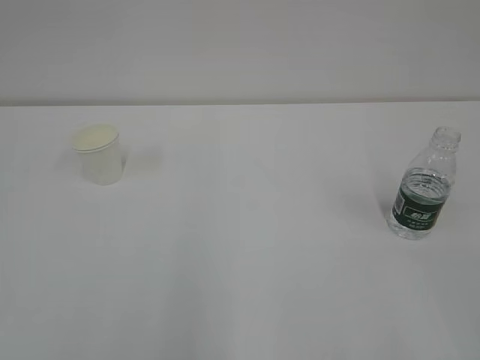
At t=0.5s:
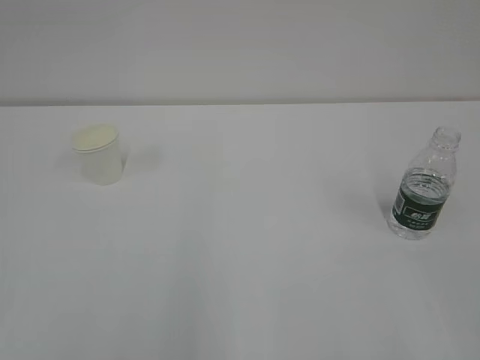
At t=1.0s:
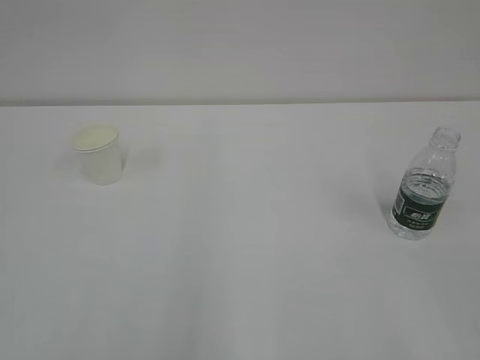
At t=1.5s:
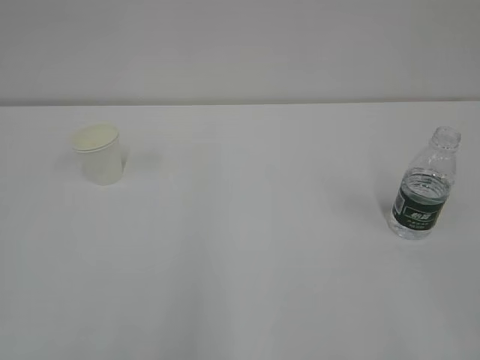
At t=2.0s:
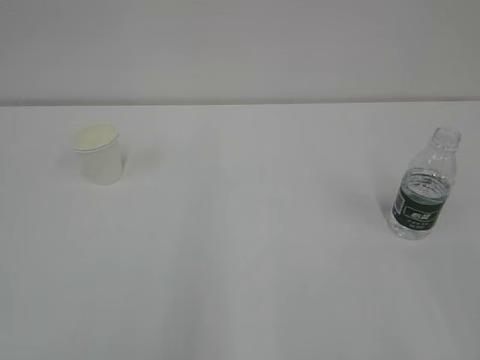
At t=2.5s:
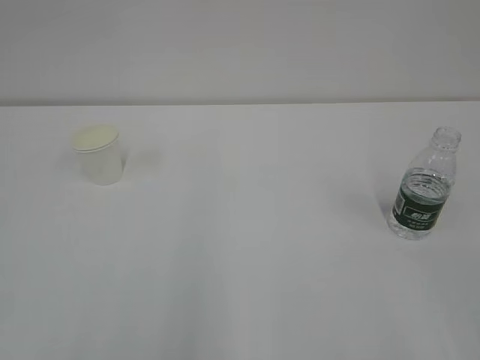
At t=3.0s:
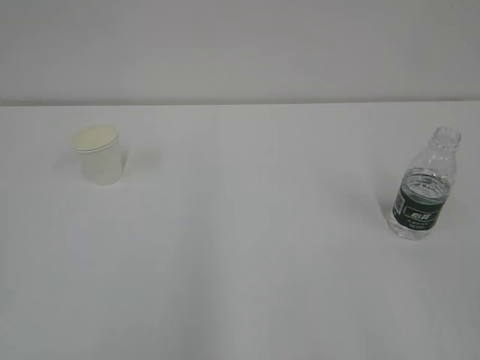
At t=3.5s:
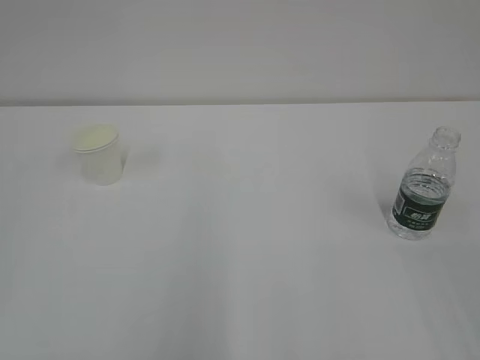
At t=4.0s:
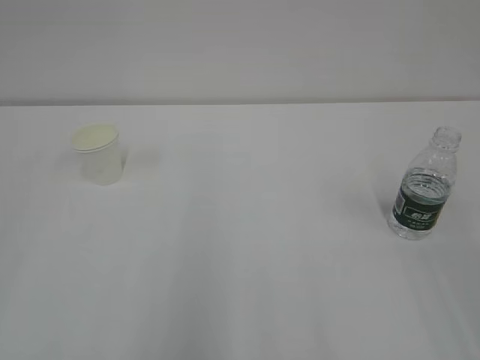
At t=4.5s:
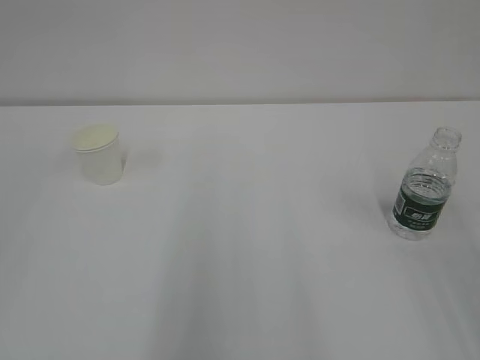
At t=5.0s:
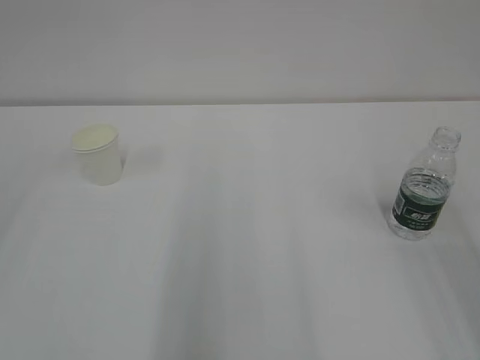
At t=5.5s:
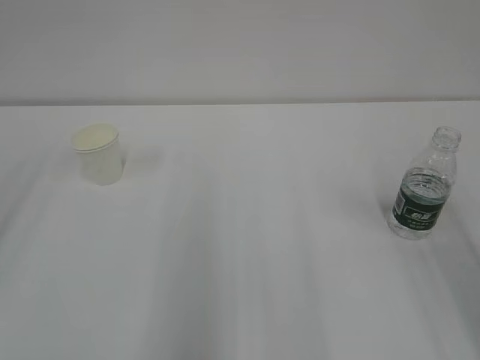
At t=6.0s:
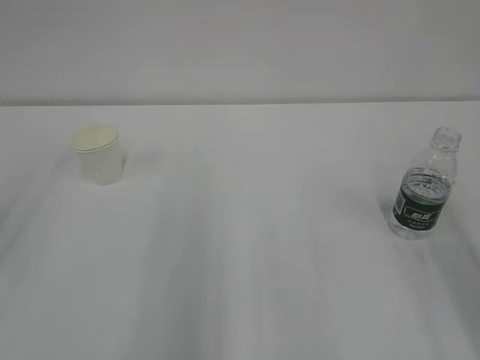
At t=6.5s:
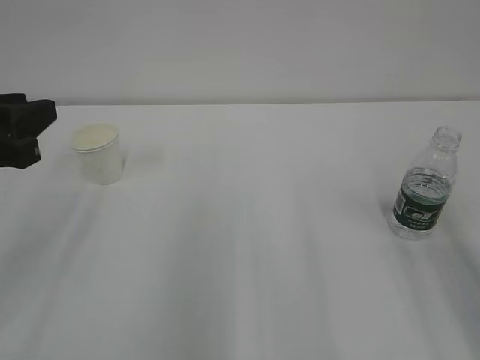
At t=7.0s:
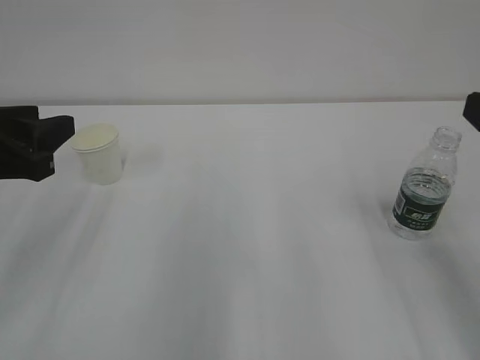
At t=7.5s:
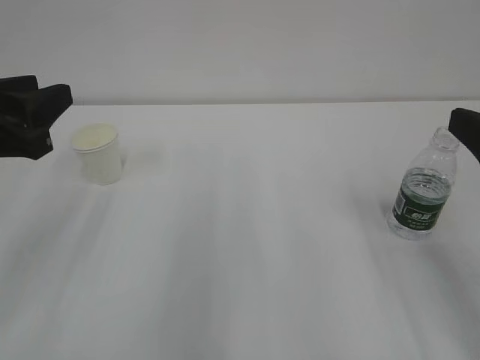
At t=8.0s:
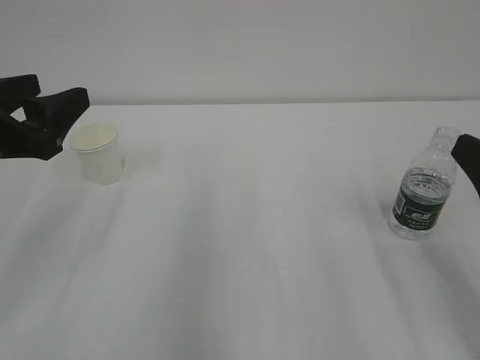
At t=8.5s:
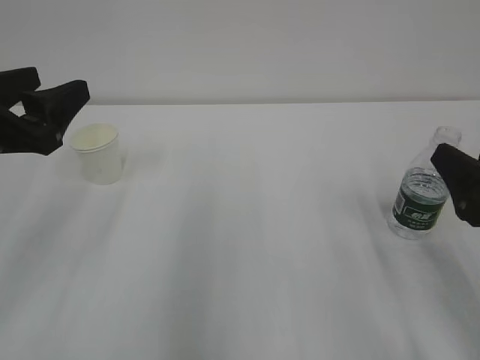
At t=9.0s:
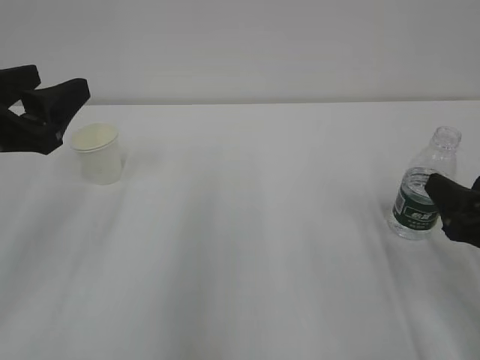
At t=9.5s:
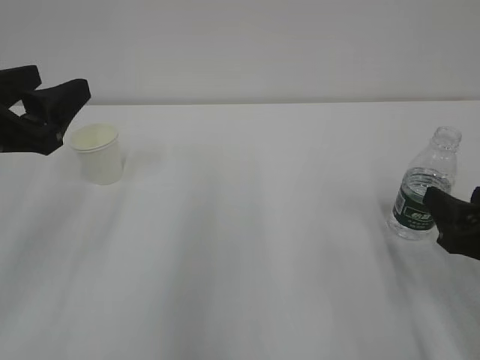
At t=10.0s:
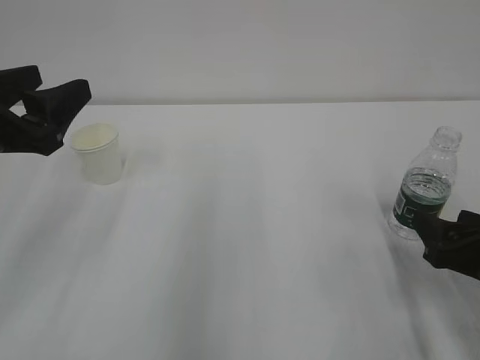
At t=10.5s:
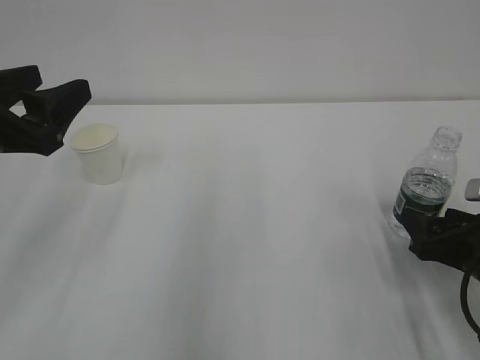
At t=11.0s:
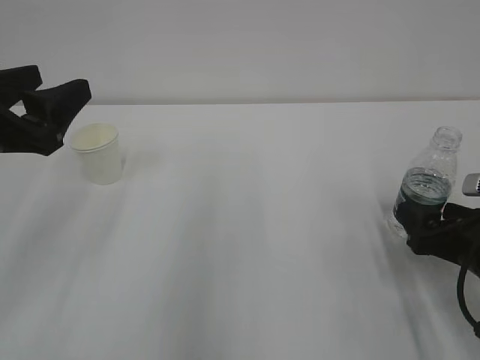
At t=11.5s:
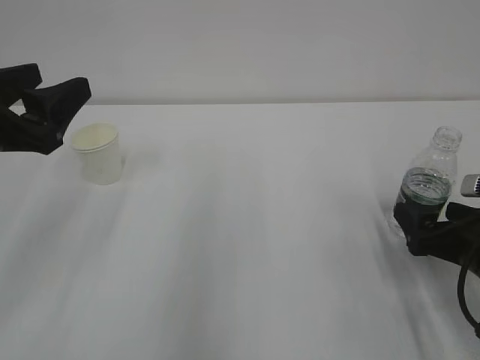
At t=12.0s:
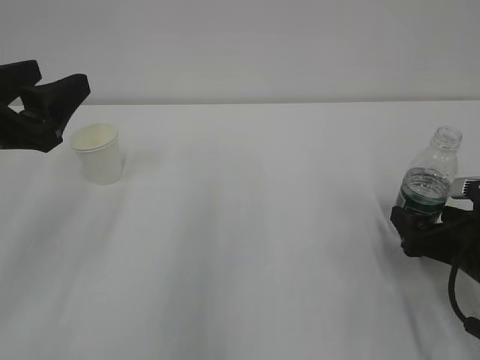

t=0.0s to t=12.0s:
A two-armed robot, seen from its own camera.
t=6.0s to t=8.0s: The left gripper is displaced to the right and downward by some 10 cm, and opens; the right gripper goes about 10 cm downward.
t=8.0s to t=10.0s: The right gripper moves downward, some 10 cm.
t=10.0s to t=12.0s: The right gripper moves some 5 cm, and opens up.

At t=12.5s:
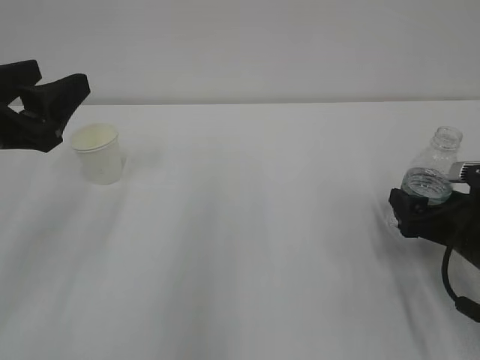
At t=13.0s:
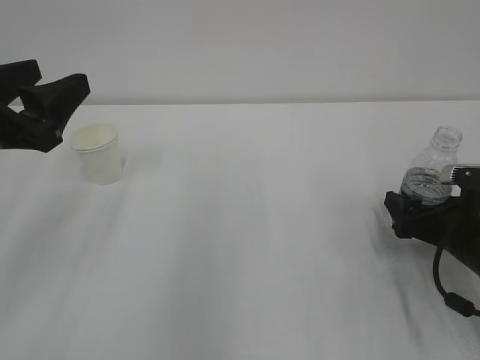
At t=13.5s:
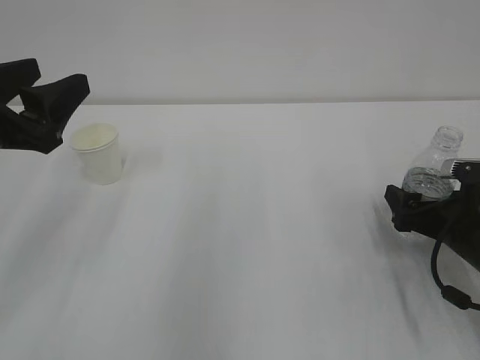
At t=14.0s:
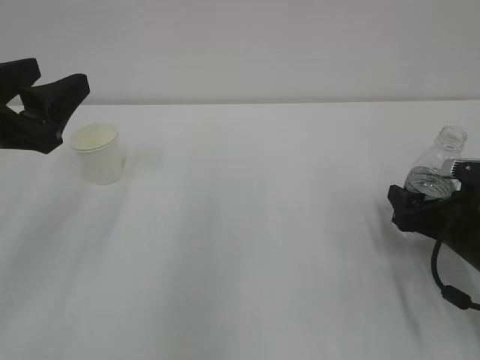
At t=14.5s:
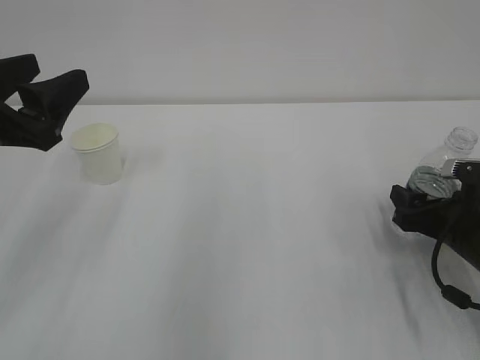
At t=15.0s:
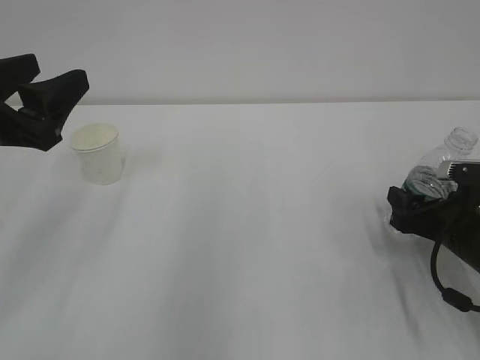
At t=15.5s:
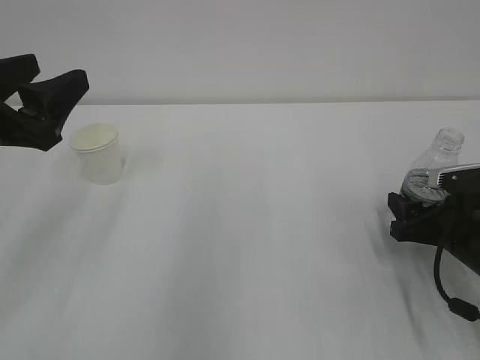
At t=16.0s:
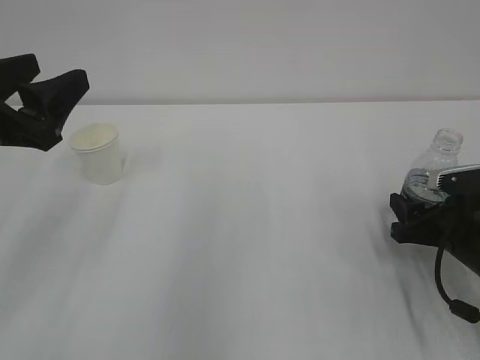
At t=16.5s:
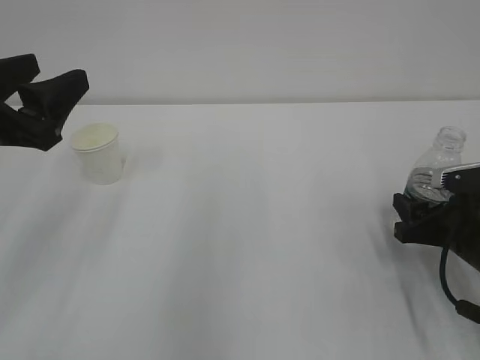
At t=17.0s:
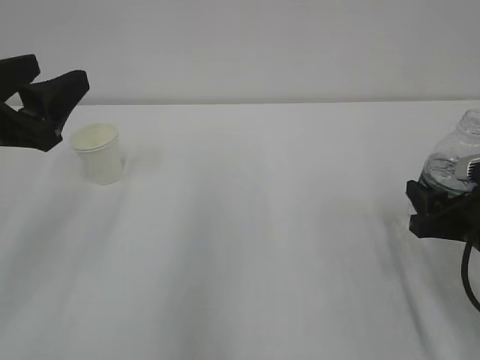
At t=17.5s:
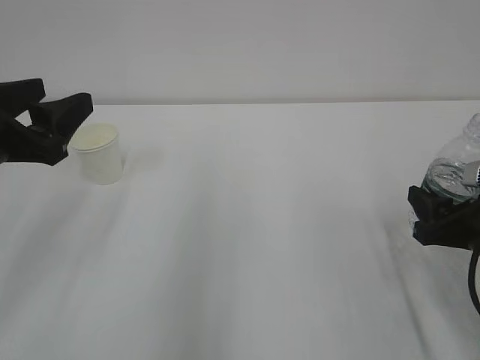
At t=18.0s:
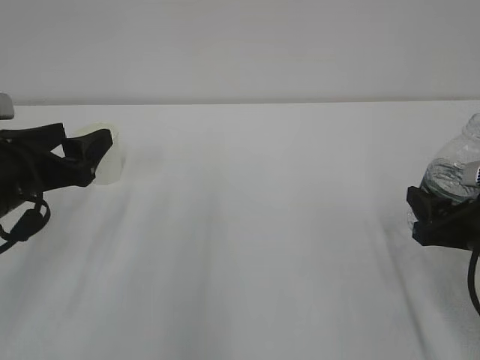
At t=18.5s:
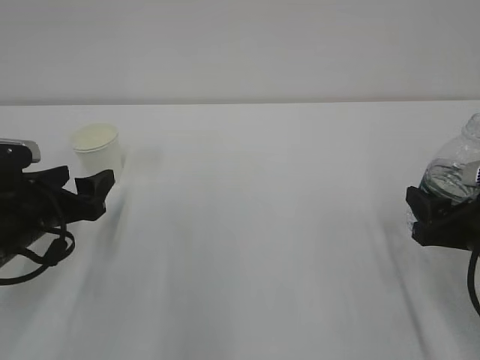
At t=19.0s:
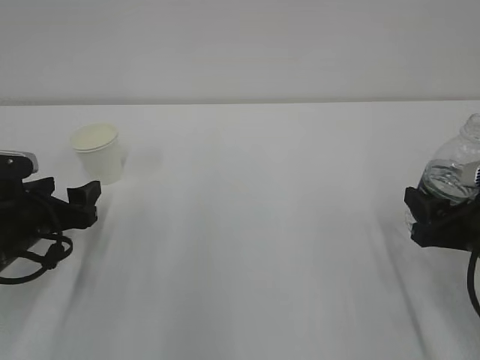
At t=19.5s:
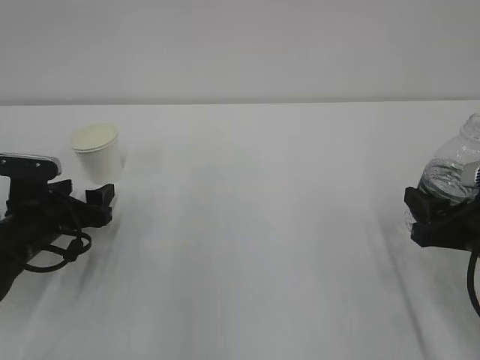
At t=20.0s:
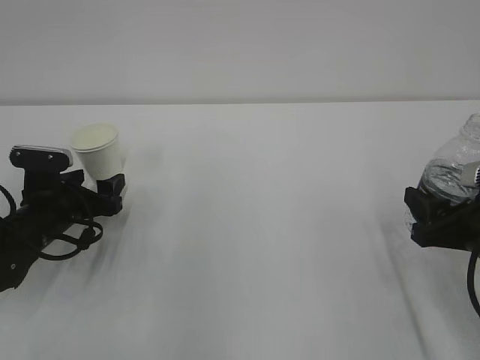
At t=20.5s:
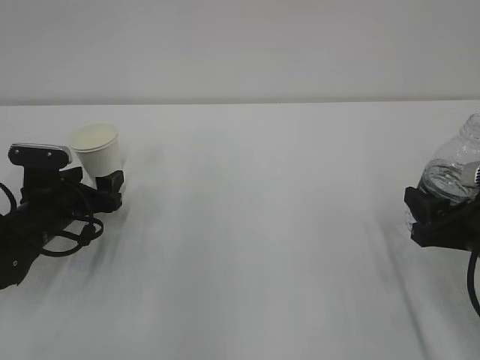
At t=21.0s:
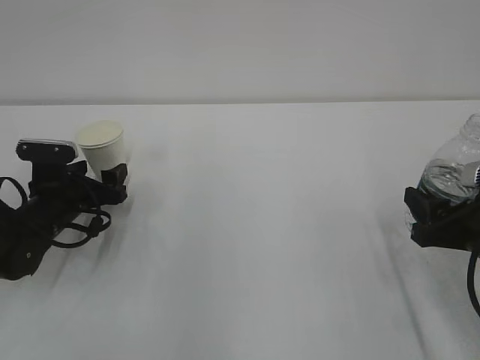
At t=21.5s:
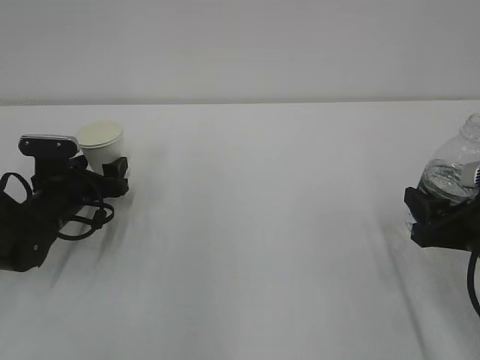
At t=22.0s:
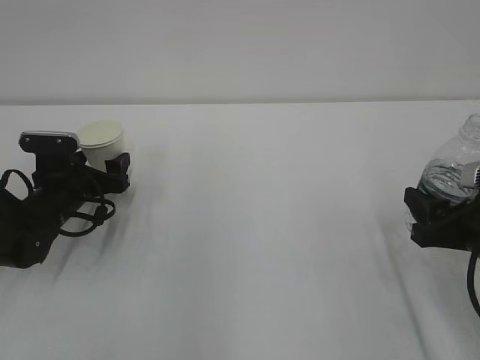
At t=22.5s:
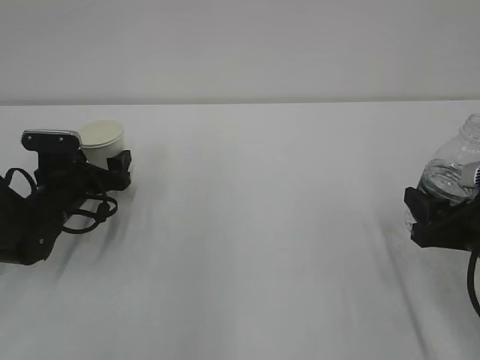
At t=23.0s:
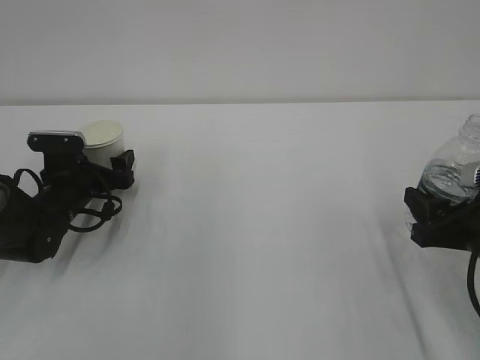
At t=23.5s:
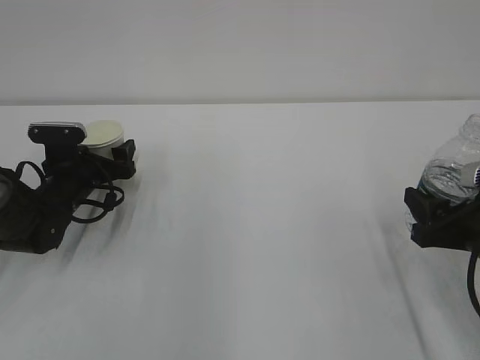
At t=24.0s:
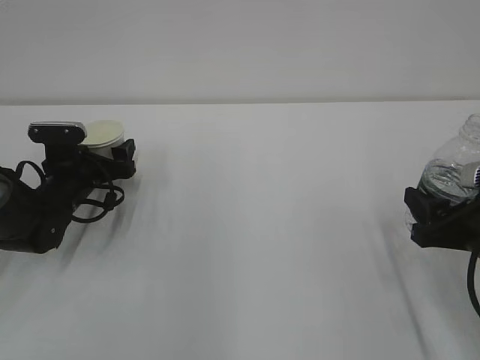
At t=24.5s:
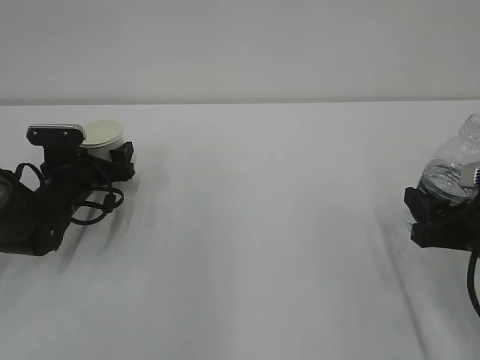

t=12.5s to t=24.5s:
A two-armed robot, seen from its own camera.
t=12.5s to t=14.5s: The right gripper closes.
t=14.5s to t=16.5s: The right gripper closes its fingers.
t=16.5s to t=18.5s: The left gripper goes some 15 cm downward, while the right gripper ends up roughly 5 cm from where it was.
t=18.5s to t=20.5s: The left gripper moves forward and downward, some 10 cm.
t=20.5s to t=22.5s: The grippers stay close to where they were, moving slightly.
t=22.5s to t=24.5s: There are only small adjustments of the grippers.

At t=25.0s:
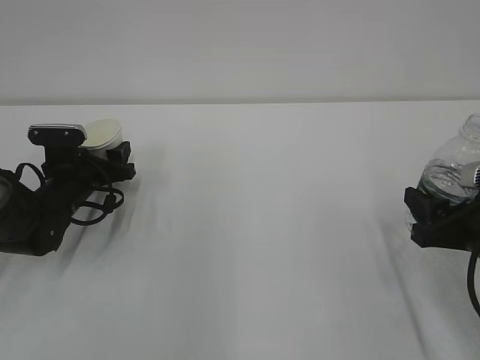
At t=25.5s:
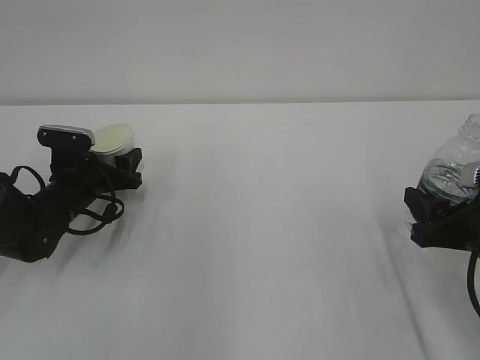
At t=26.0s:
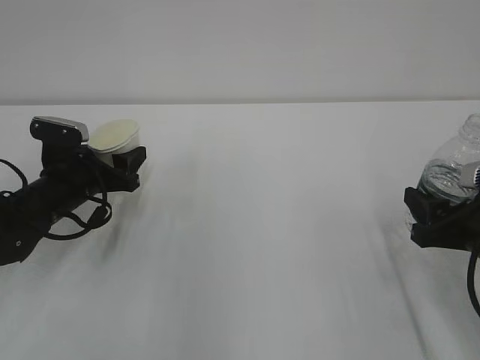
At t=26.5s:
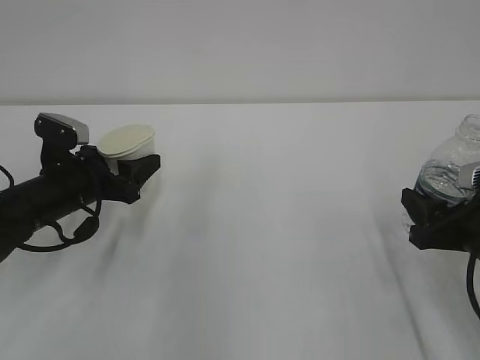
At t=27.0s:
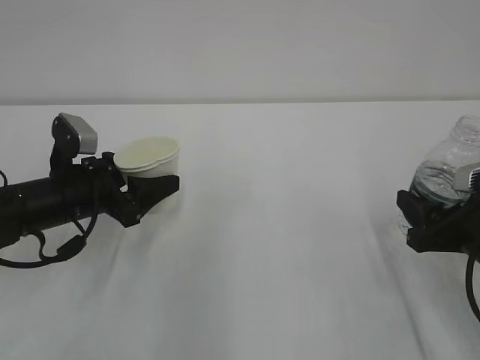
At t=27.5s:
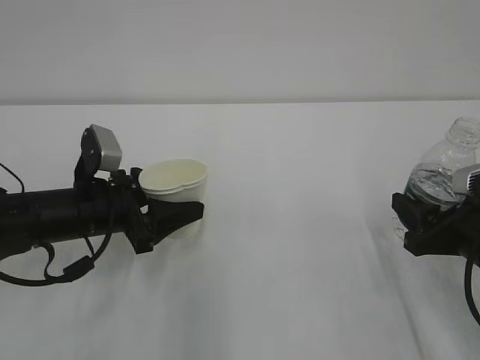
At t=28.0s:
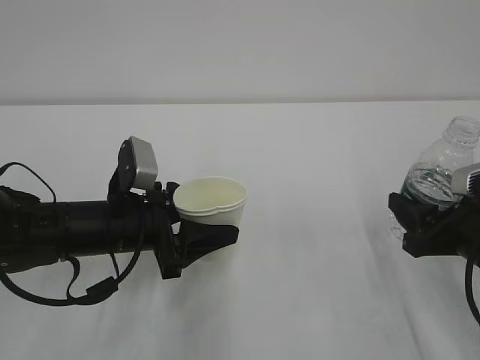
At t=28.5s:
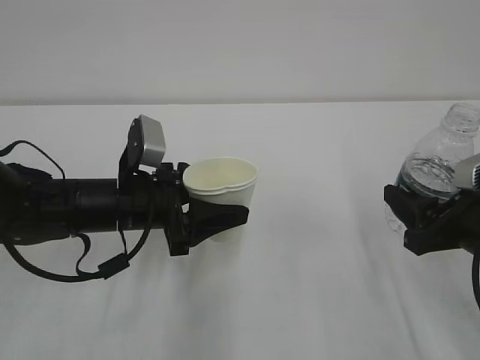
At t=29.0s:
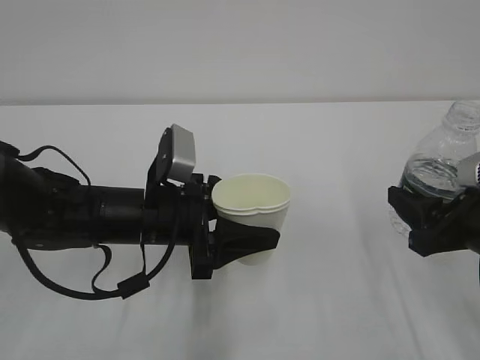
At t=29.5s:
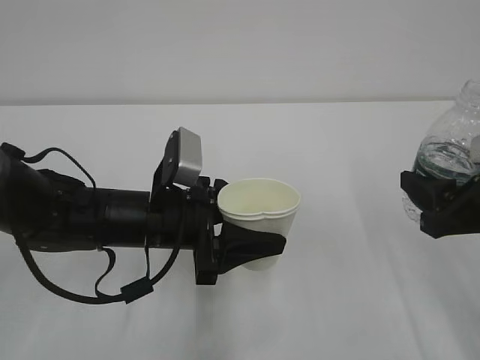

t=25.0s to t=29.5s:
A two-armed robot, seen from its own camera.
t=25.0s to t=27.0s: The left gripper is displaced backward and upward by roughly 10 cm.
t=27.0s to t=29.5s: The left gripper heads to the right and backward, covering approximately 15 cm. The right gripper heads upward, covering approximately 5 cm.
